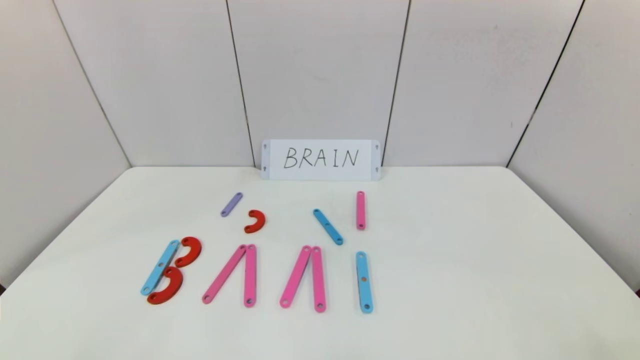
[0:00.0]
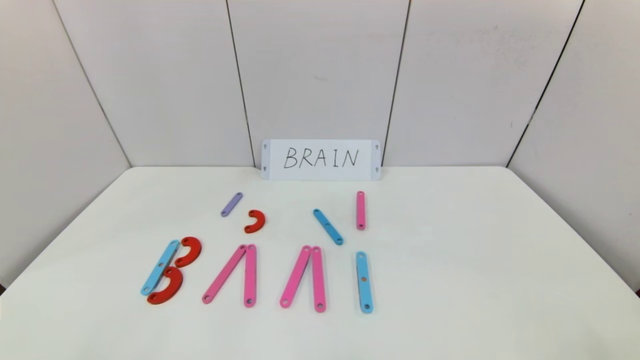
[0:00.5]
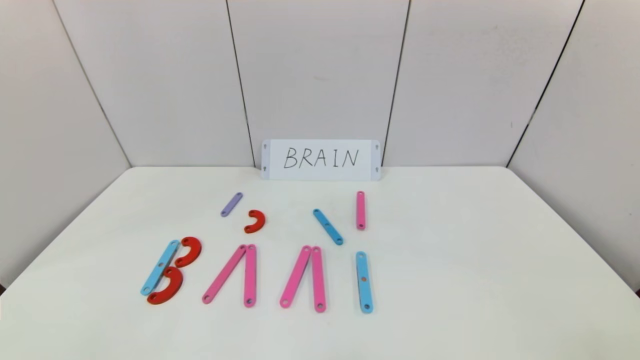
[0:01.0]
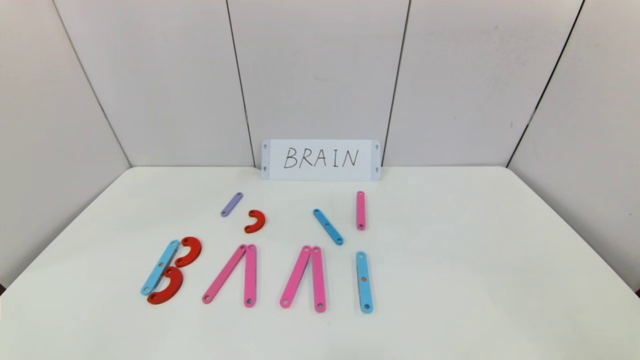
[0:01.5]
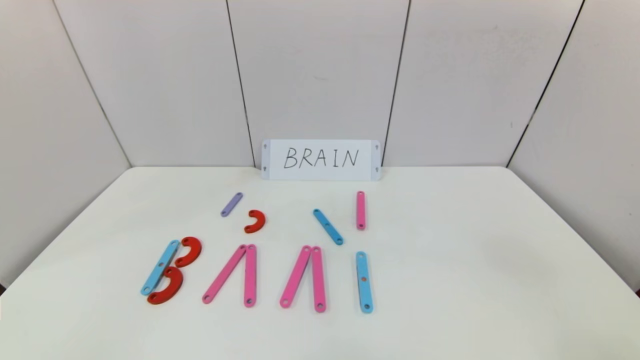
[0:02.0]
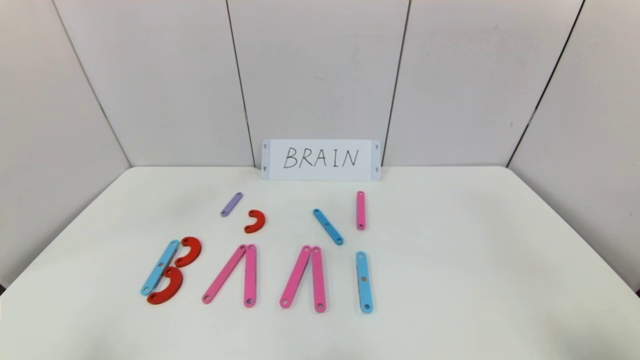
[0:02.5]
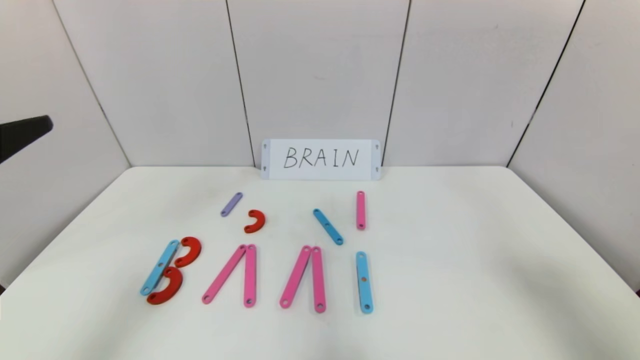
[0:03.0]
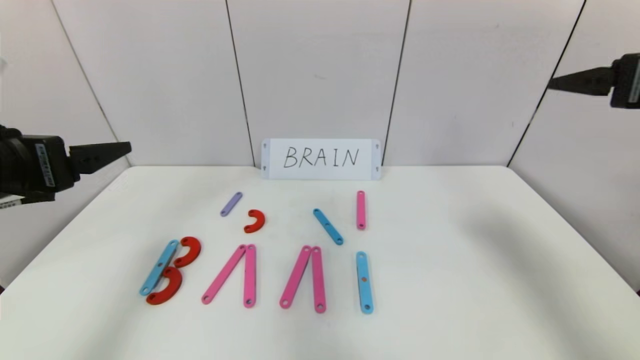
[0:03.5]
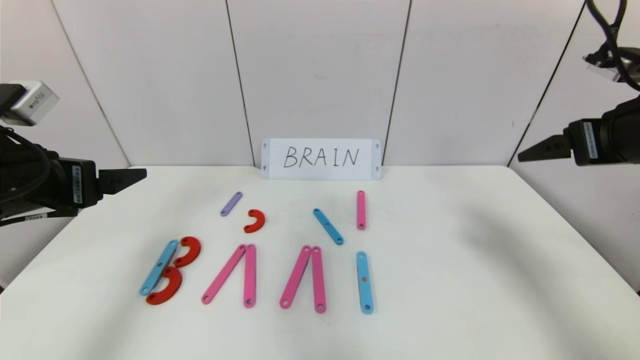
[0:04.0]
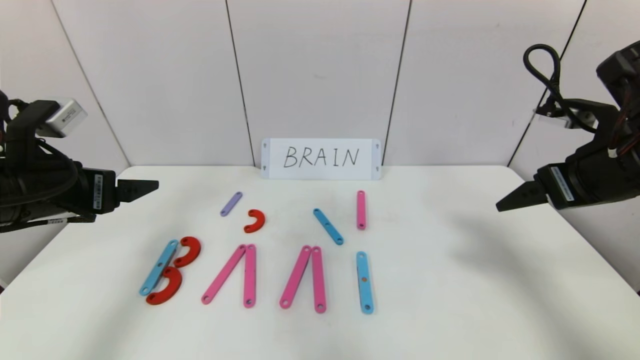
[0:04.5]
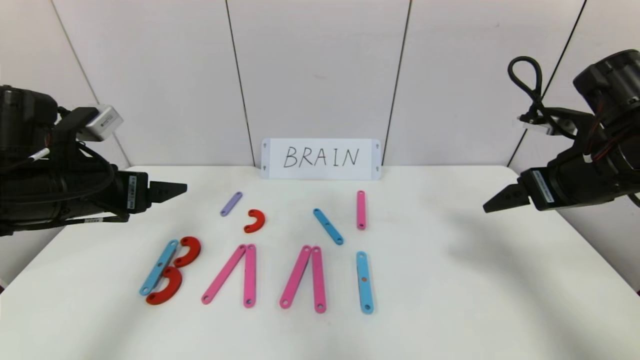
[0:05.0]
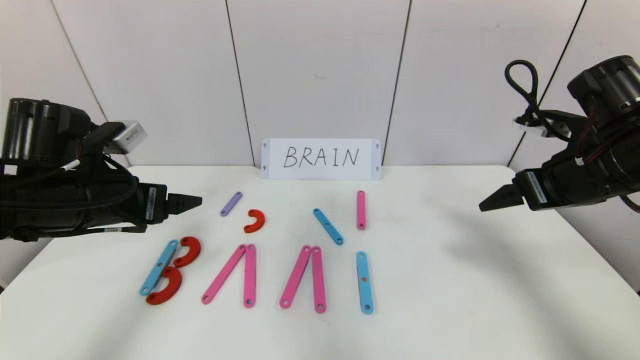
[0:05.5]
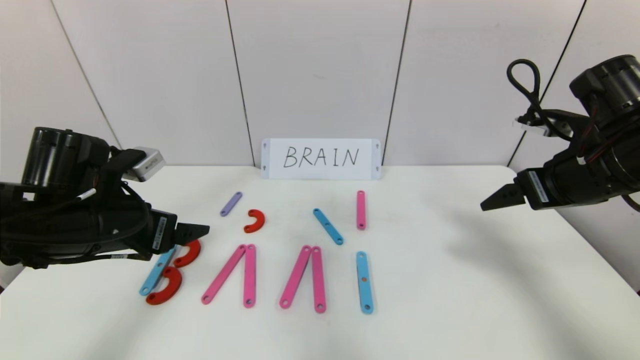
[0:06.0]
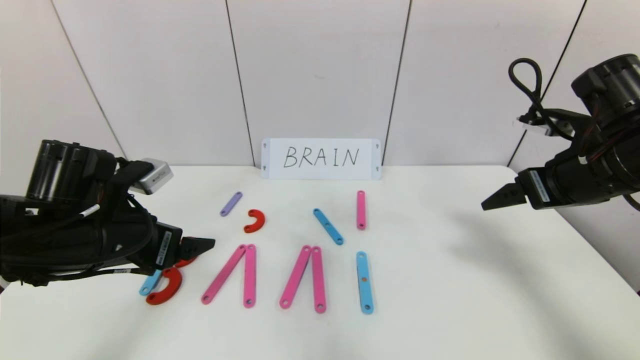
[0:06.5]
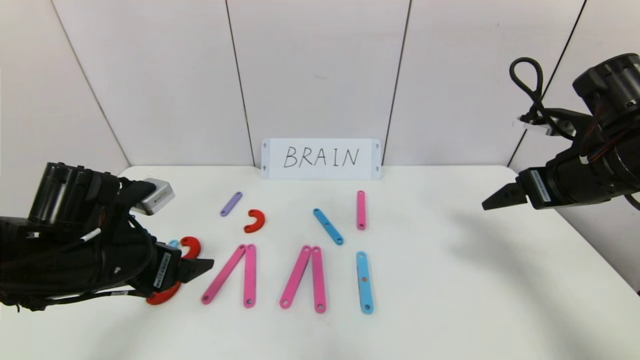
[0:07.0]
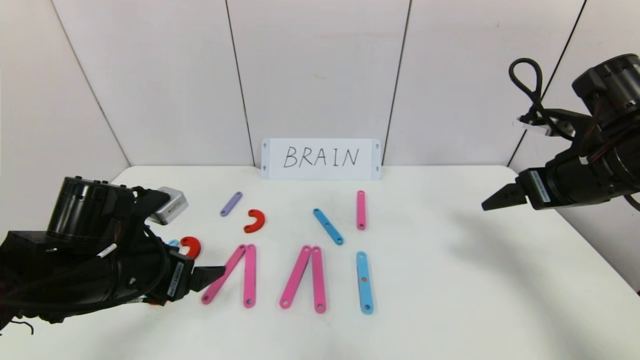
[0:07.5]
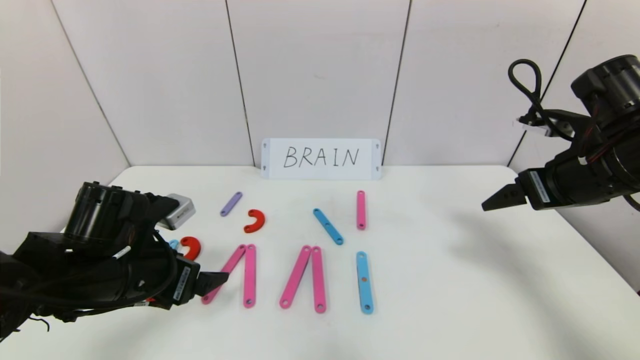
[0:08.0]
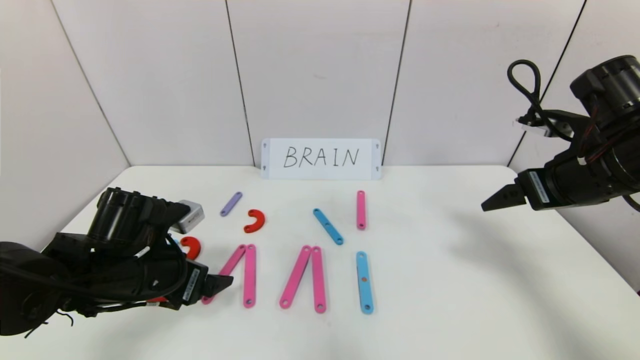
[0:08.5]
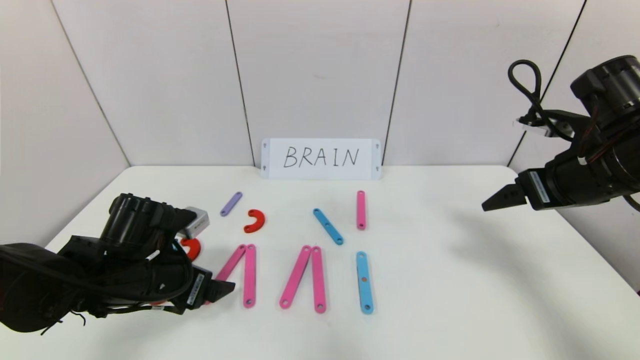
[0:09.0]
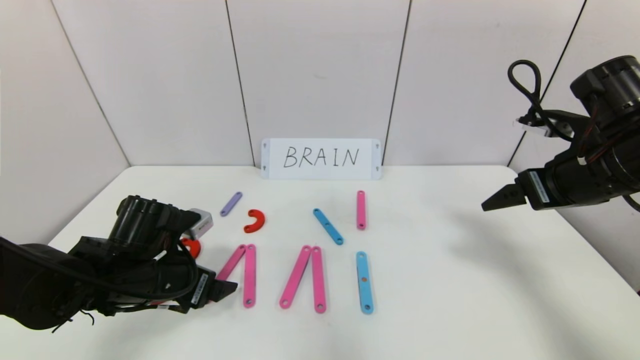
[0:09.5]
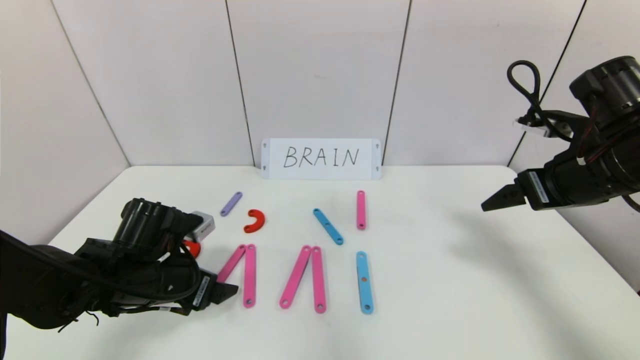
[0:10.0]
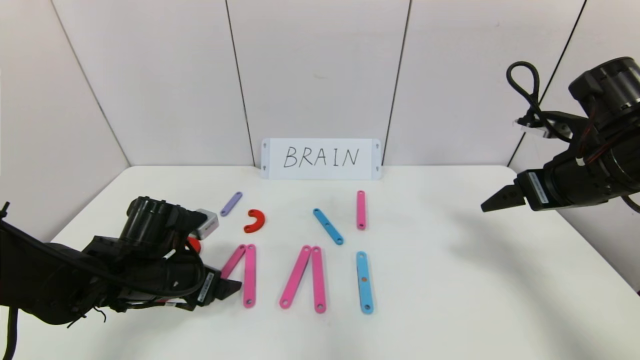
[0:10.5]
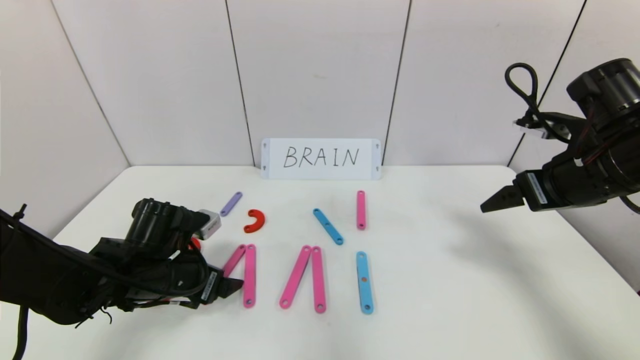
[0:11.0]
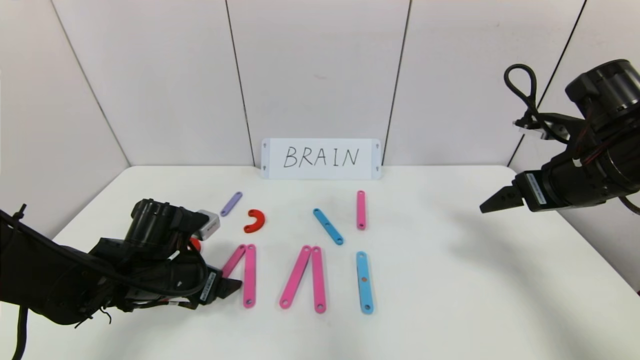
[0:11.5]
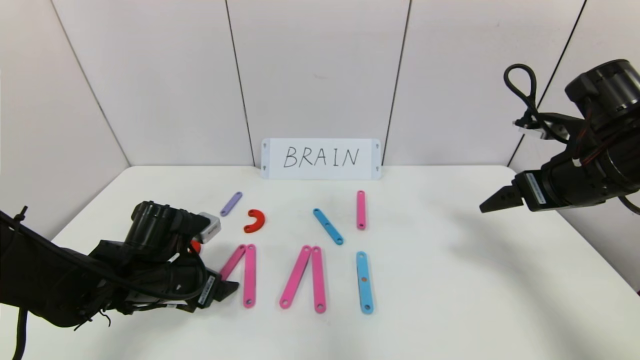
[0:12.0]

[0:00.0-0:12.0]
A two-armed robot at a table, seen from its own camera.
Task of the whole recording: rearrange the word baai as brain.
0:02.0 to 0:04.0: The grippers both shift forward by approximately 25 cm.
0:04.0 to 0:06.0: Both grippers travel together downward, roughly 5 cm.
0:06.0 to 0:08.0: The left gripper goes approximately 5 cm downward.
0:08.0 to 0:10.0: The left gripper ends up some 5 cm from where it was.
0:10.0 to 0:12.0: The grippers stay close to where they were, moving slightly.

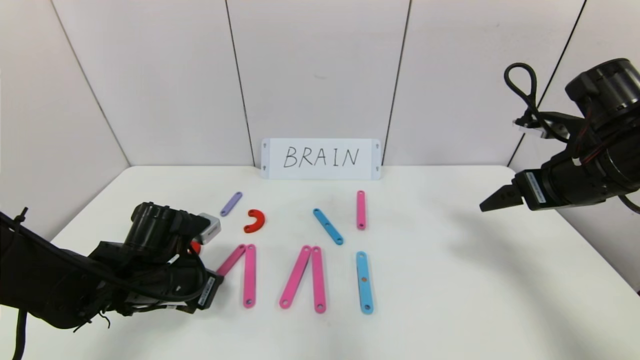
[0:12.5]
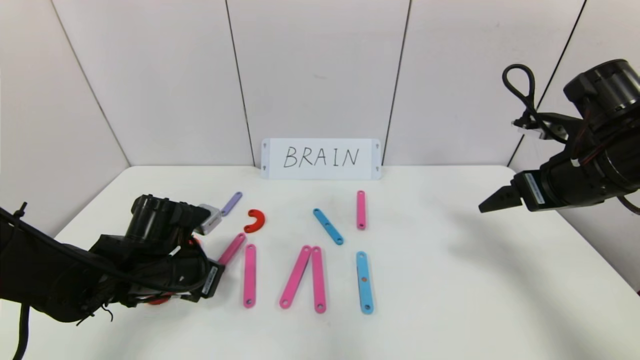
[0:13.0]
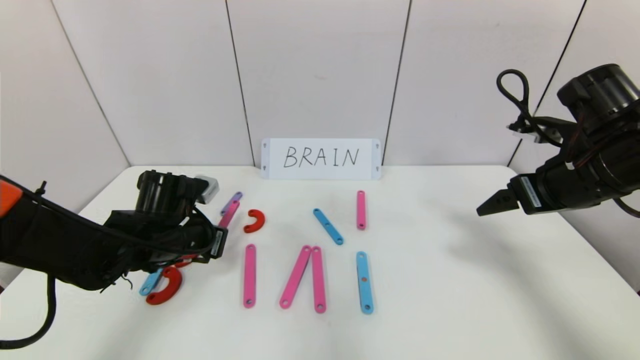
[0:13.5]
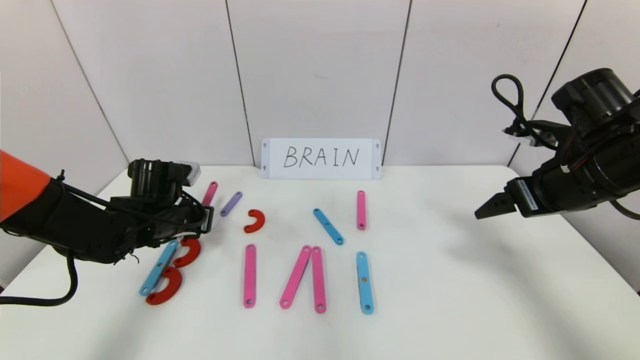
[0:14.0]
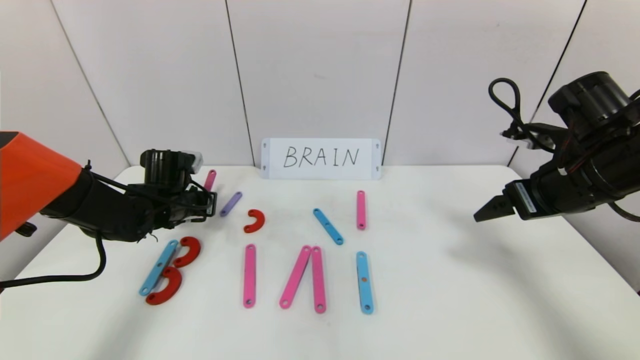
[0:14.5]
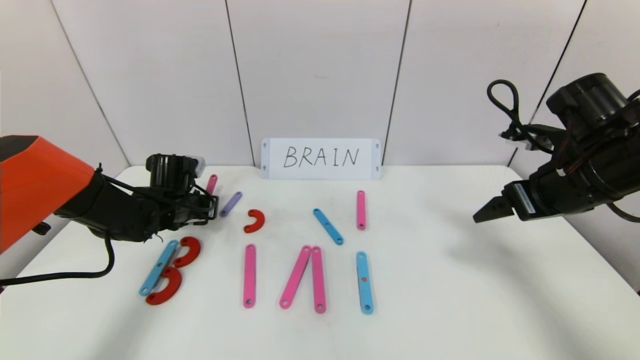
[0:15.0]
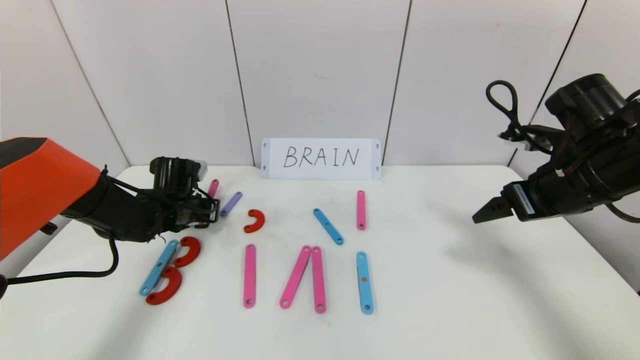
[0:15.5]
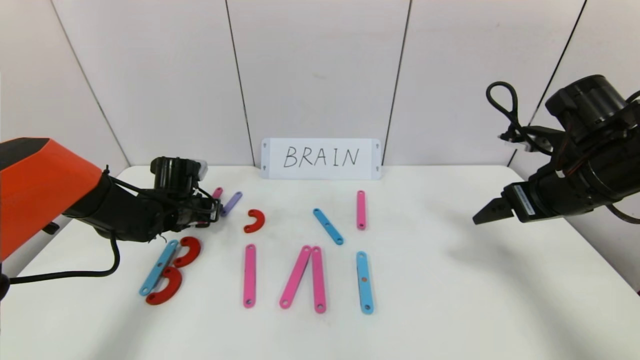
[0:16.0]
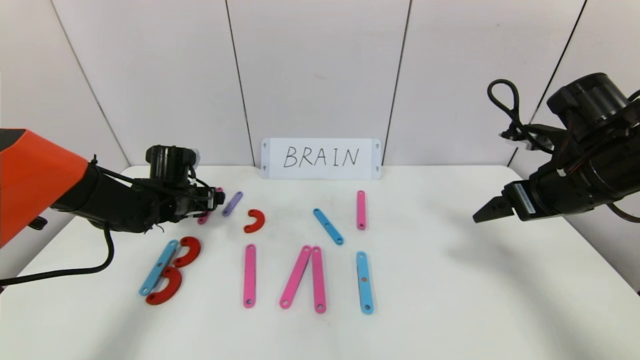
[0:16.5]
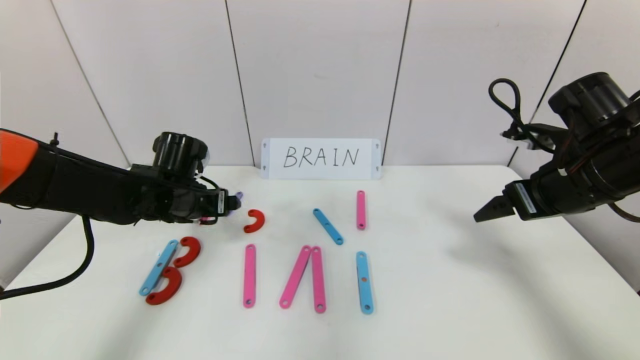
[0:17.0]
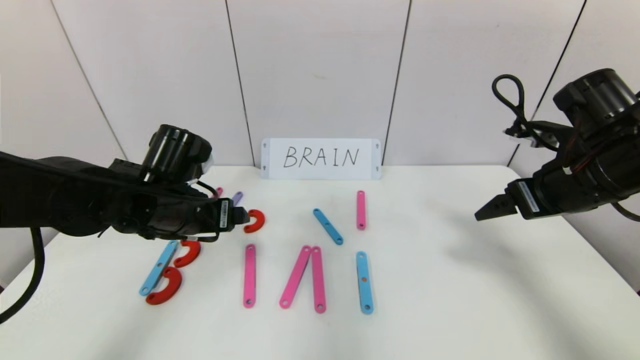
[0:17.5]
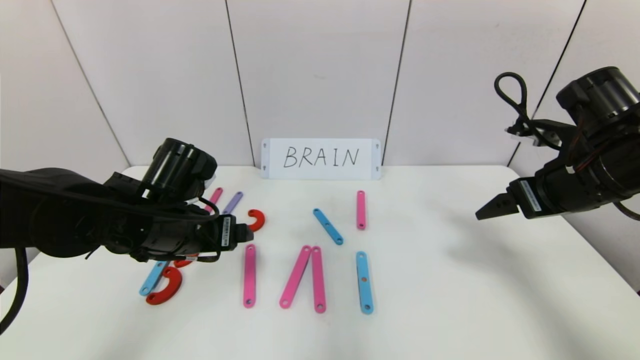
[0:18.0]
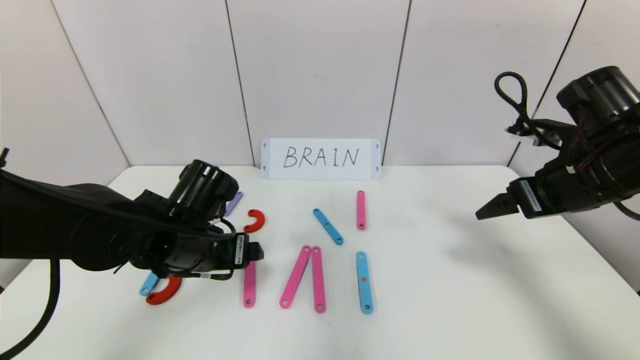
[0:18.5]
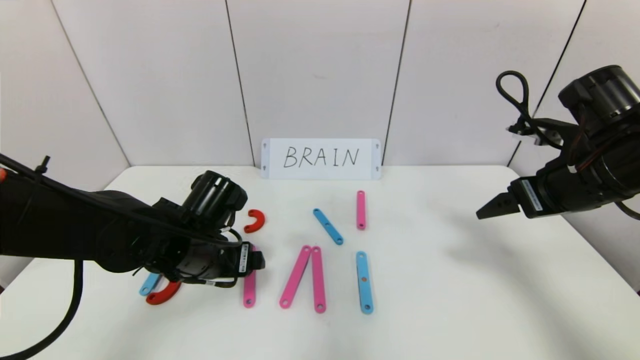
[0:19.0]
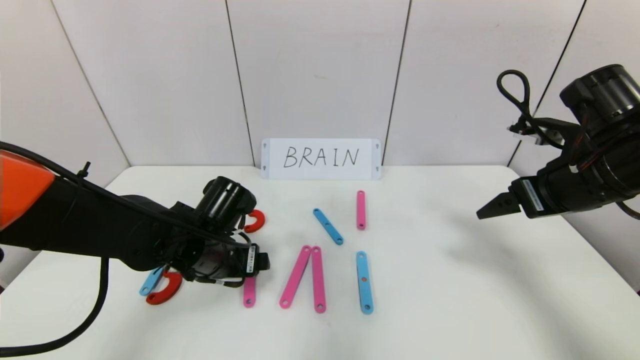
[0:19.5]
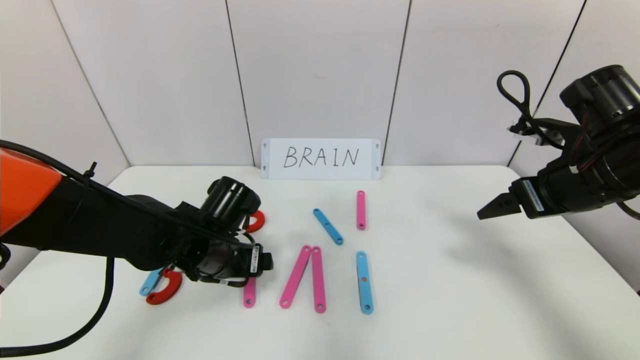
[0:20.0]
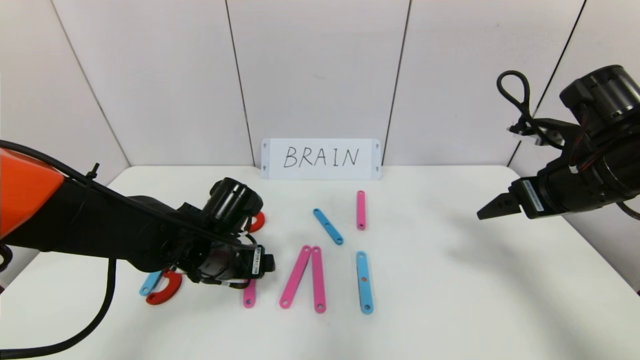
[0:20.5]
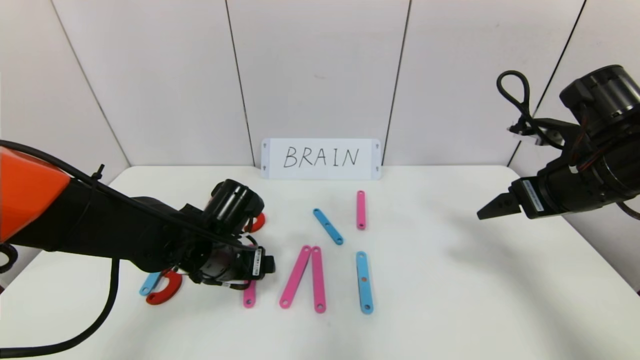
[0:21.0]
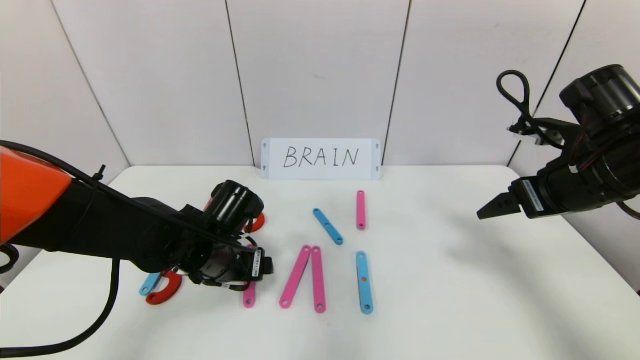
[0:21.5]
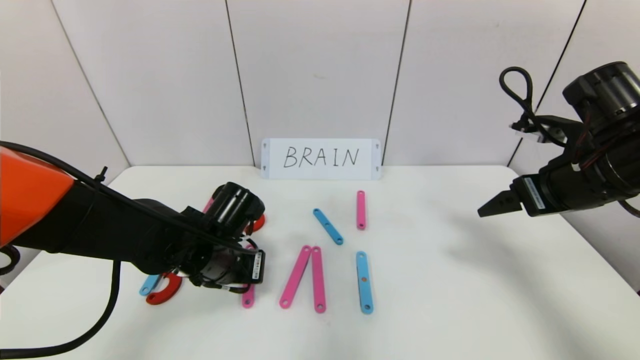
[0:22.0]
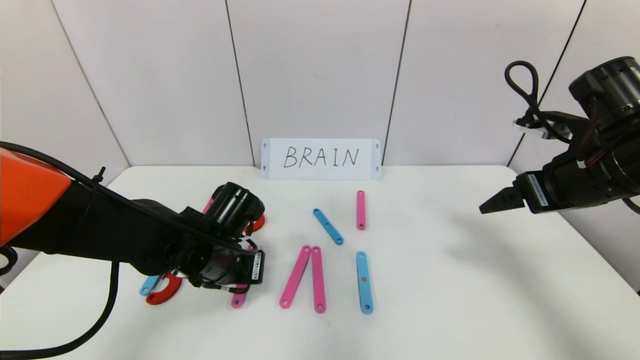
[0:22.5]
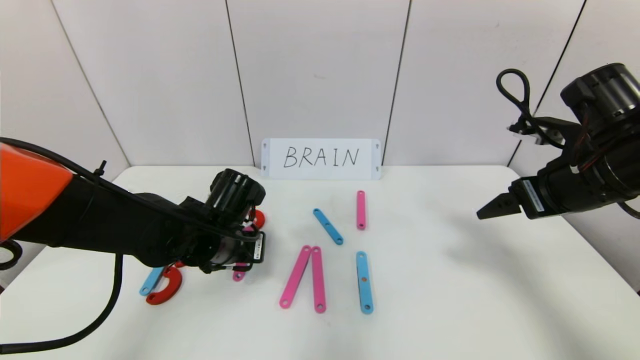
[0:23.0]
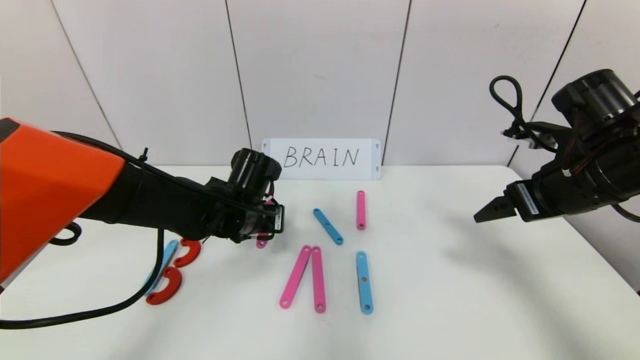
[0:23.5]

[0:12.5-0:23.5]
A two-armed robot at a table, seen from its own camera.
Task of the whole recording: rearrange the word baai as brain.
0:12.5 to 0:14.5: The left gripper goes roughly 15 cm forward.
0:14.5 to 0:16.0: The left gripper opens.
0:16.0 to 0:18.0: The left gripper goes roughly 20 cm backward, upward and to the right, and opens up.
0:18.0 to 0:20.0: The left gripper goes some 5 cm downward.
0:20.0 to 0:21.5: Both grippers stay about where they are.
0:21.5 to 0:23.5: The left gripper heads forward, covering some 5 cm, and closes up.